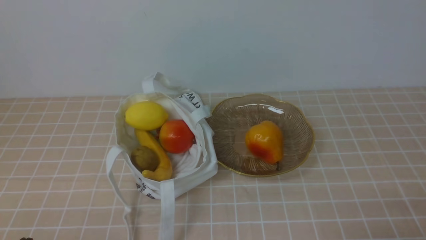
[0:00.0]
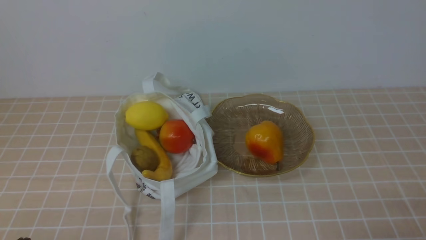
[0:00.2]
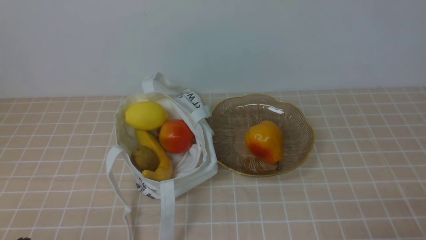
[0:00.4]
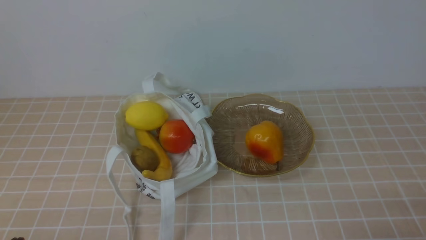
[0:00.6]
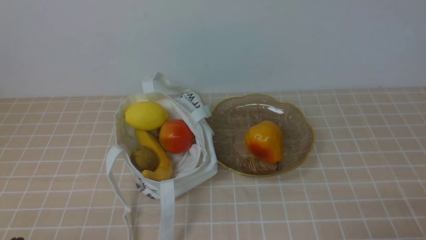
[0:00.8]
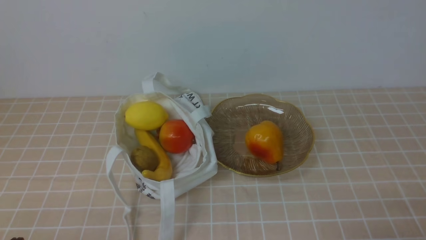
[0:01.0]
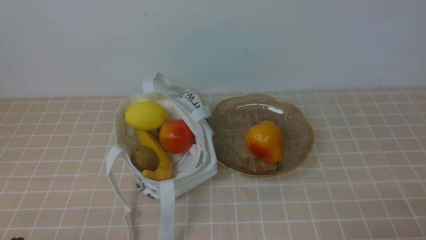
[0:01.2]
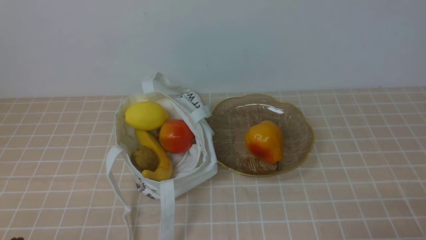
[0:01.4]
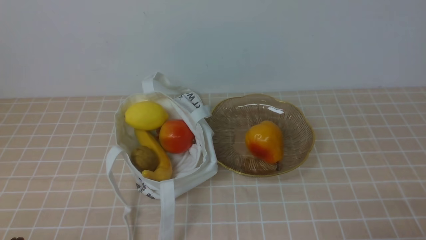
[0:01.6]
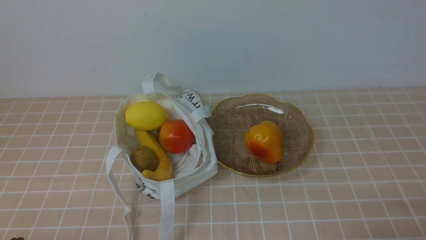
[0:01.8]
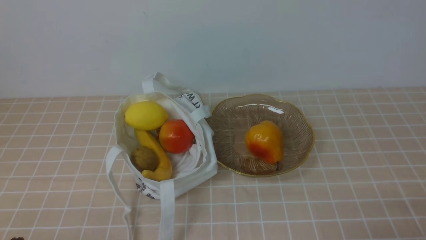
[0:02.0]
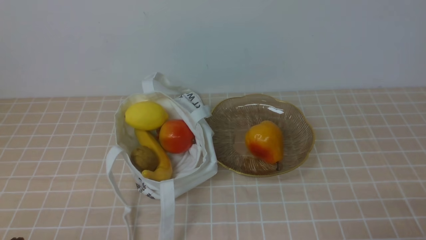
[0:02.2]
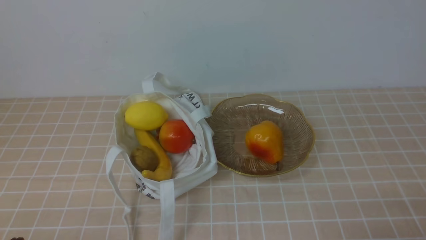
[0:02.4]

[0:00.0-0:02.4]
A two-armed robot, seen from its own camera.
0:00.0 to 0:02.4: Both grippers stay about where they are.

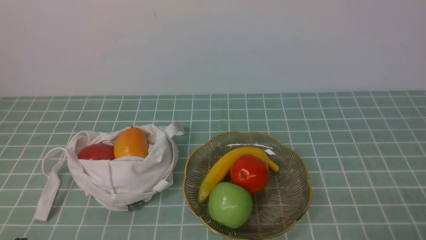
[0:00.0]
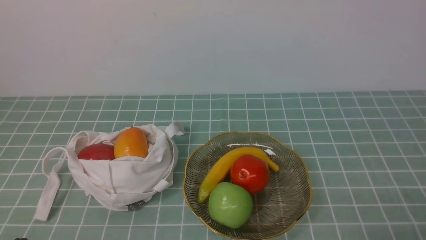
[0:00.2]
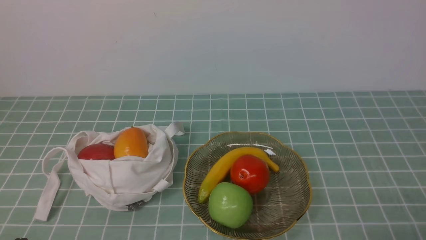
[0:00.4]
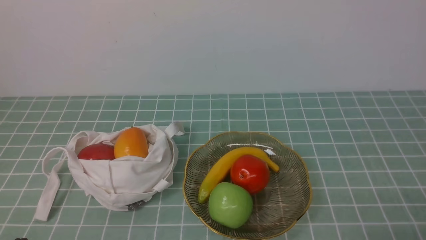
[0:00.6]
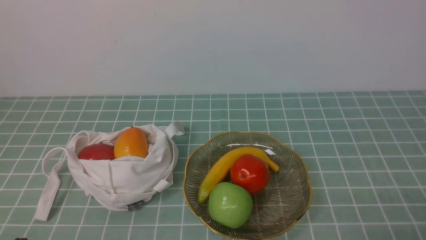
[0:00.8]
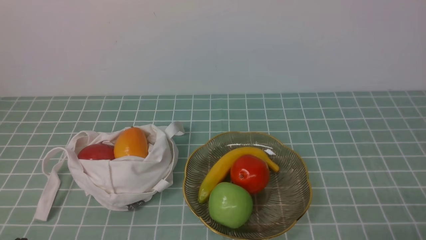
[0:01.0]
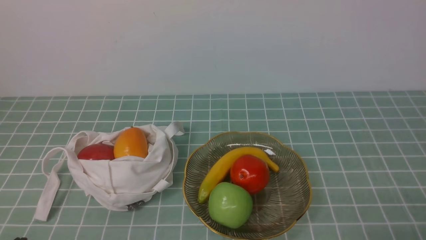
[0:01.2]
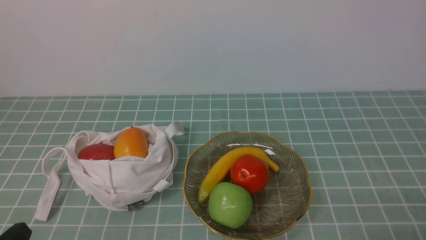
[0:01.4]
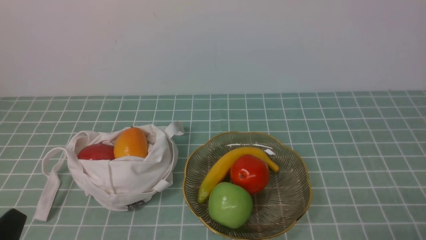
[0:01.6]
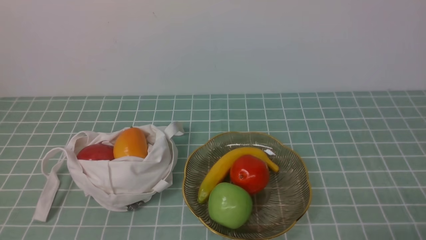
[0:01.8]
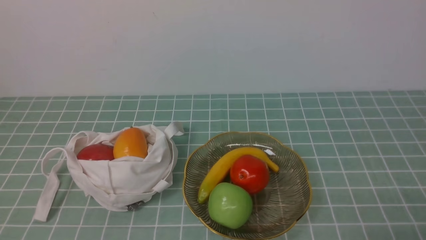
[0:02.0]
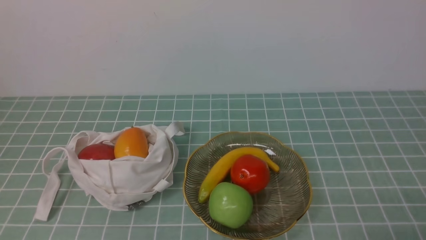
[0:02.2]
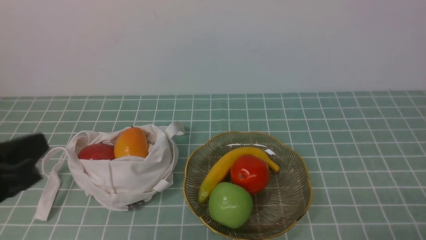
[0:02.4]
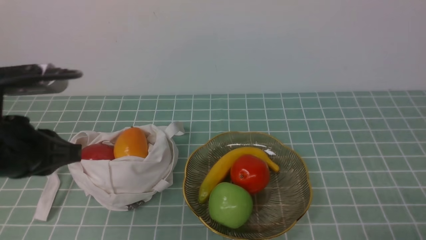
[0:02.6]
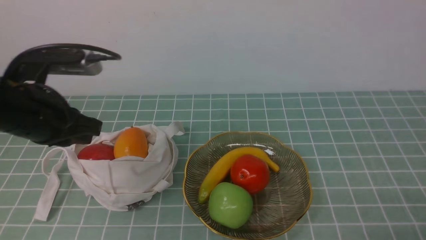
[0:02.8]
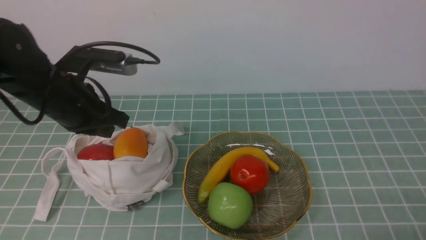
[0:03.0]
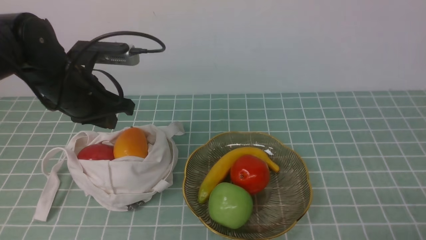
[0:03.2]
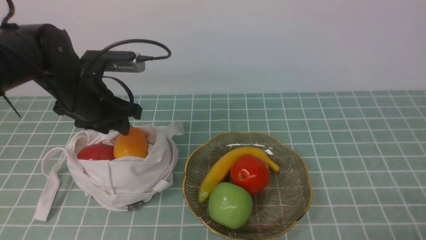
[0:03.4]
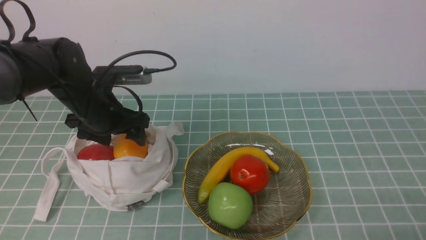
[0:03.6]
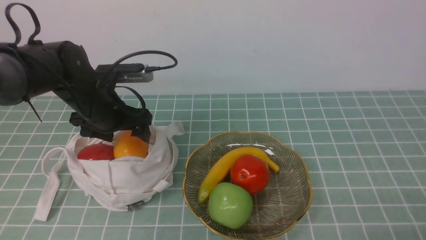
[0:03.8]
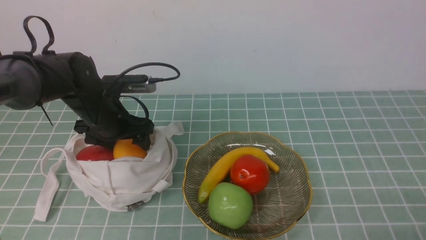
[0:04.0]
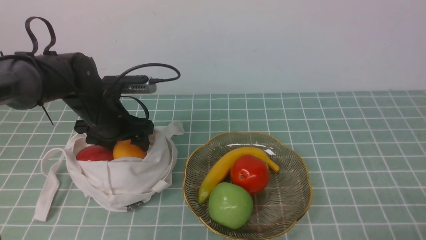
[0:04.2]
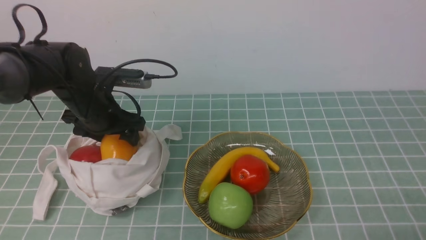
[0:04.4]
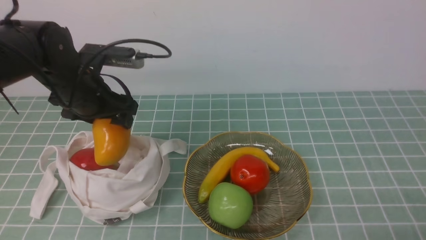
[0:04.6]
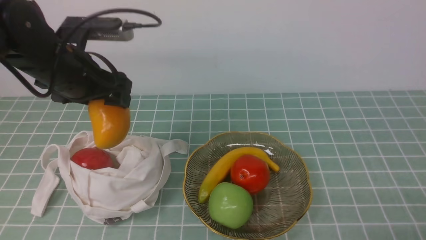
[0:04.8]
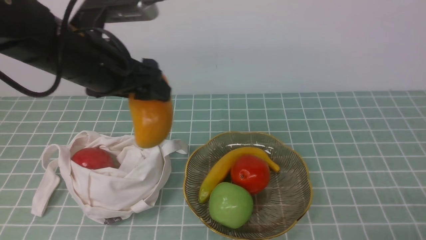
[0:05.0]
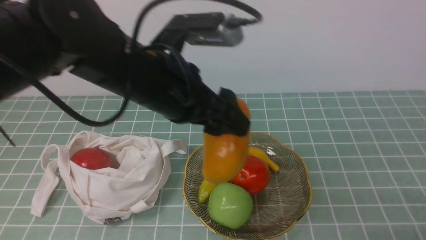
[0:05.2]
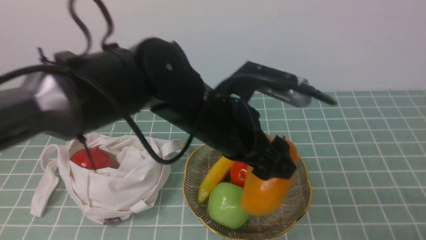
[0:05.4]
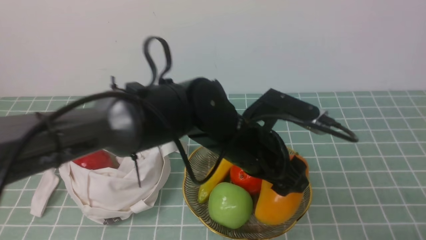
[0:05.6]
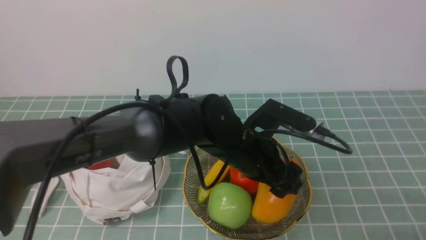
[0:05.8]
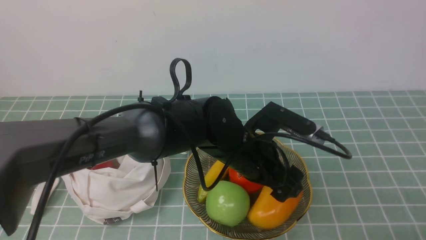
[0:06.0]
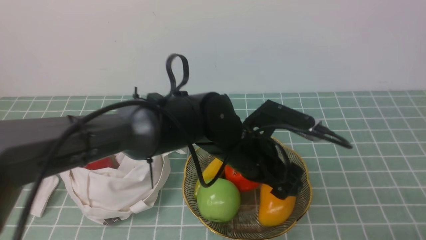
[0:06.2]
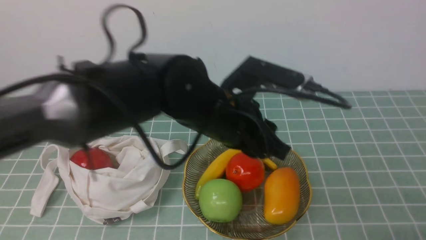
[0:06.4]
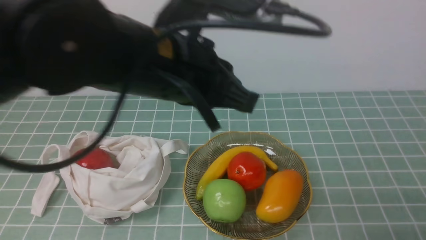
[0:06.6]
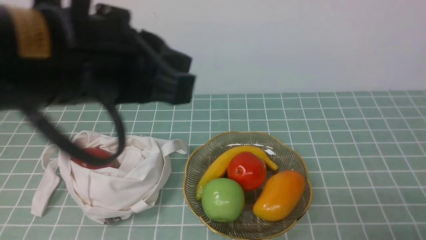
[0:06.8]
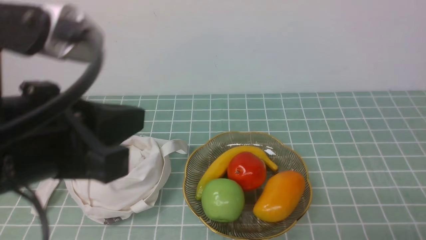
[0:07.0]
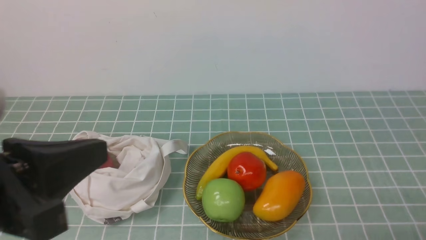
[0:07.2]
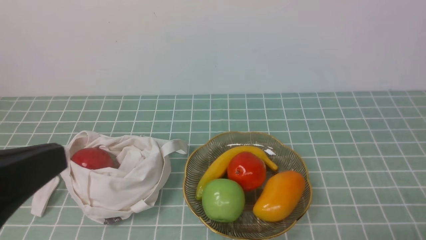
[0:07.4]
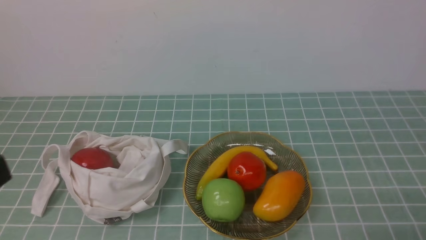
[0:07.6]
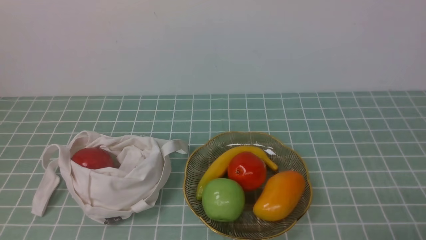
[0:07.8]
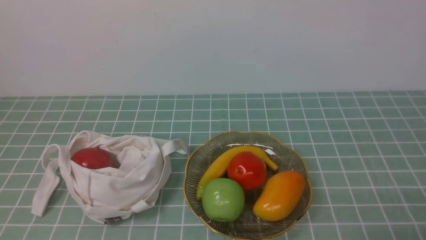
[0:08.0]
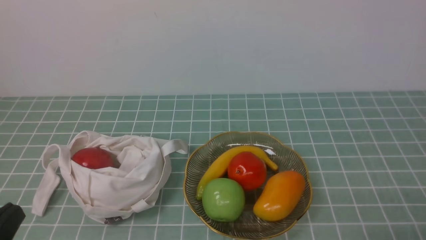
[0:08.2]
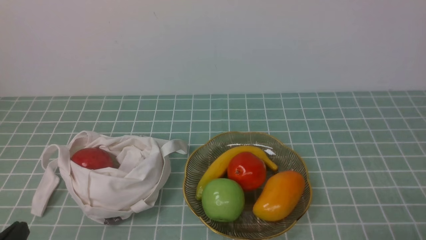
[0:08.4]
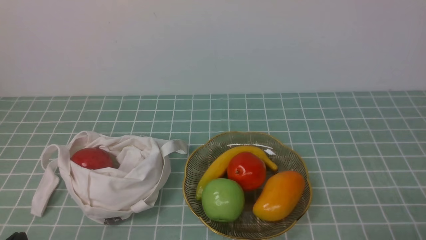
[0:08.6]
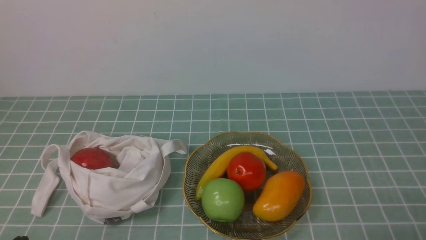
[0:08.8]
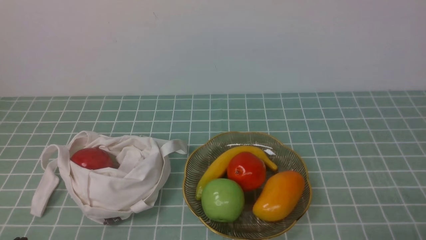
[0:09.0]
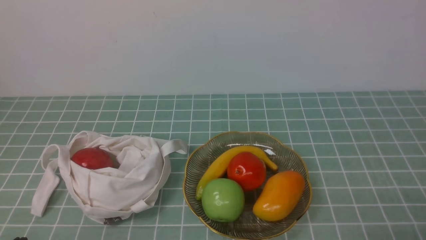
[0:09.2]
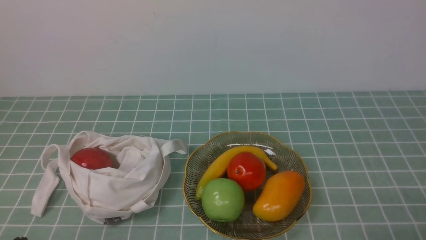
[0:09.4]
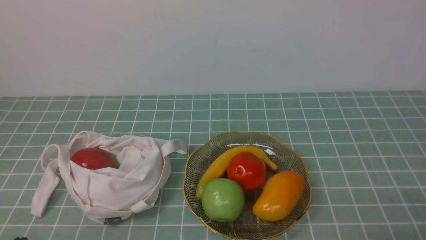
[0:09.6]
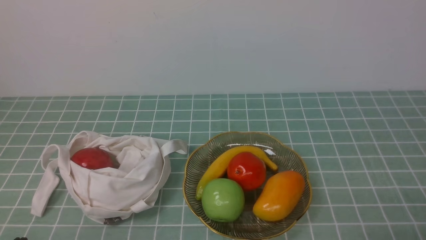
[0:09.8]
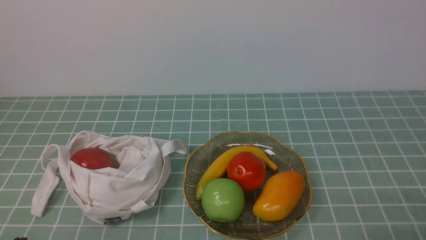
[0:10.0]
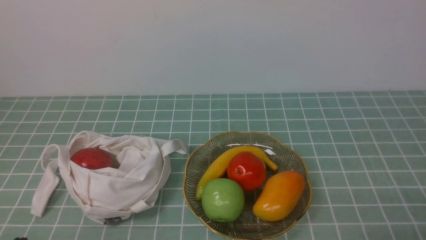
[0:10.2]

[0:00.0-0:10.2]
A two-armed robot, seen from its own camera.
Step, 0:00.0 to 0:04.4: use the left arm to grab a mango from the bag.
Step, 0:04.6 to 0:06.2: use the left arm to put the mango into the empty plate on the right.
0:01.4 to 0:03.0: The left gripper shifts some 25 cm forward.
0:03.0 to 0:04.4: The left gripper goes roughly 10 cm forward and downward, and opens.
0:04.4 to 0:05.8: The left gripper goes about 25 cm to the right.
0:05.8 to 0:07.2: The left gripper moves to the left, backward and upward, approximately 35 cm, and closes up.
0:07.2 to 0:08.8: The left gripper goes approximately 20 cm downward.
0:08.8 to 0:10.2: Both grippers stay about where they are.

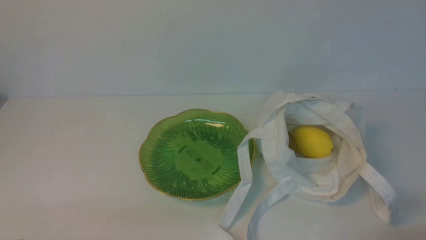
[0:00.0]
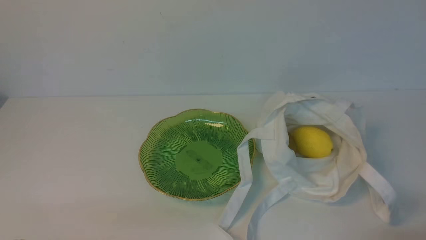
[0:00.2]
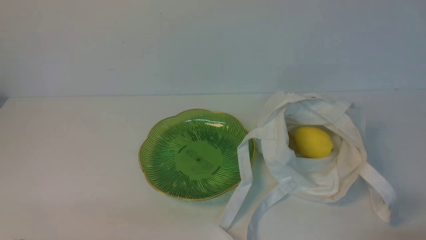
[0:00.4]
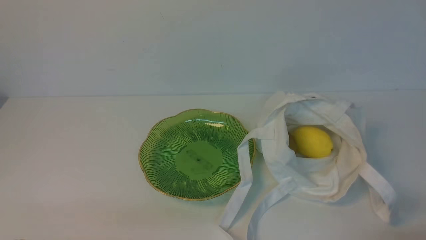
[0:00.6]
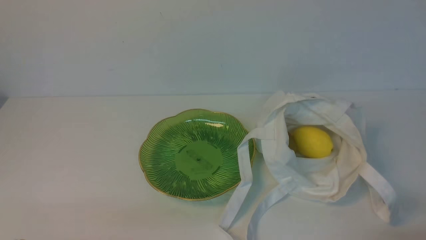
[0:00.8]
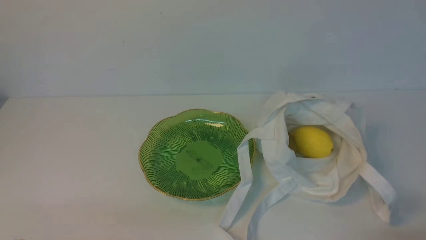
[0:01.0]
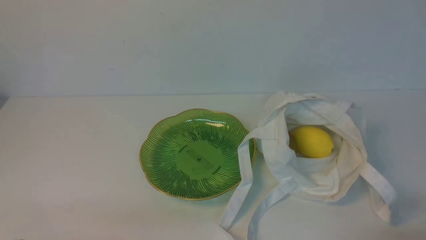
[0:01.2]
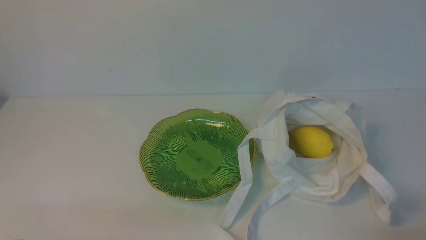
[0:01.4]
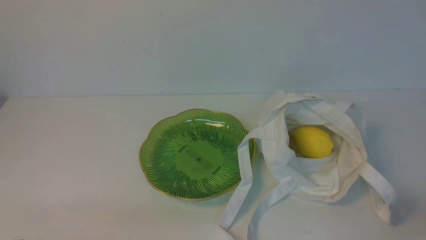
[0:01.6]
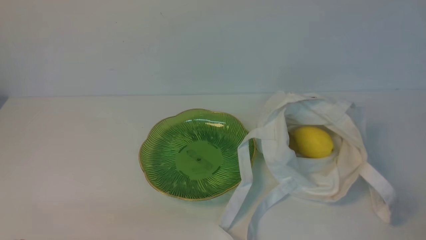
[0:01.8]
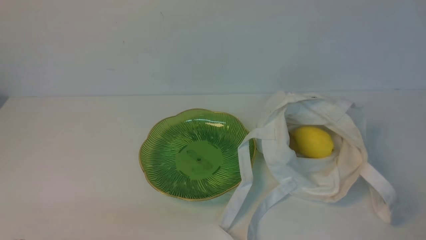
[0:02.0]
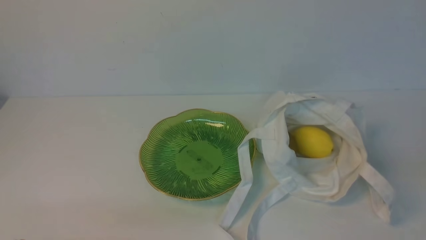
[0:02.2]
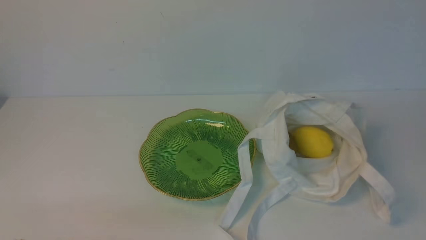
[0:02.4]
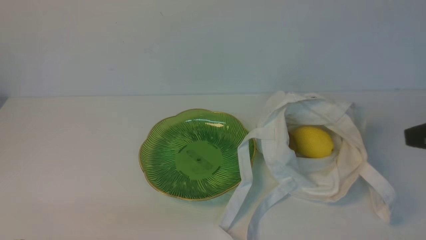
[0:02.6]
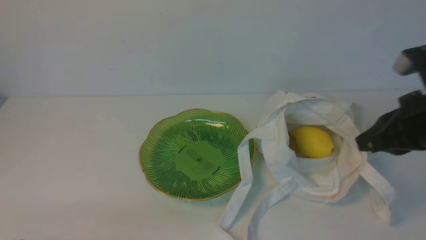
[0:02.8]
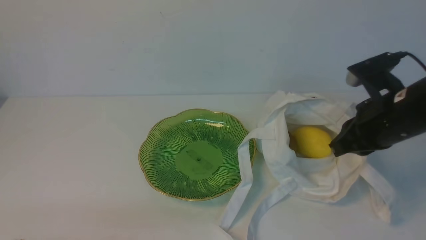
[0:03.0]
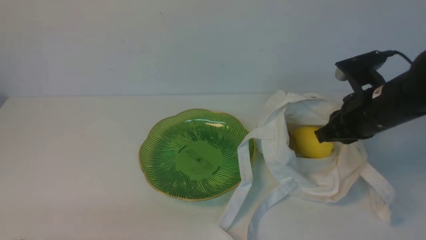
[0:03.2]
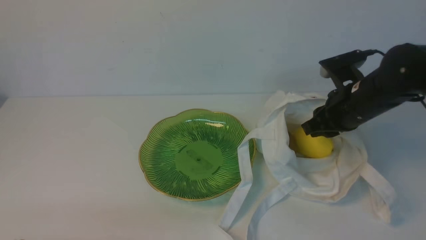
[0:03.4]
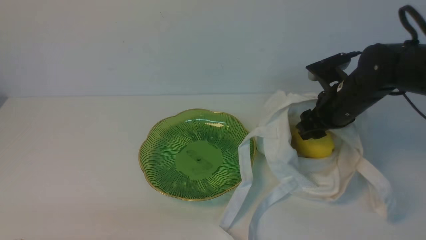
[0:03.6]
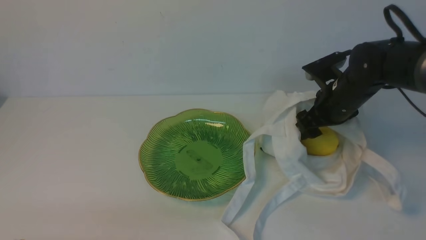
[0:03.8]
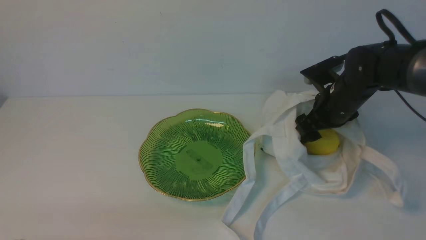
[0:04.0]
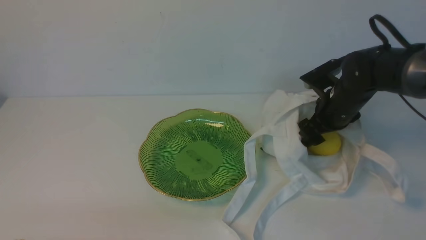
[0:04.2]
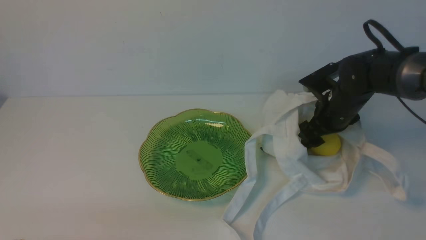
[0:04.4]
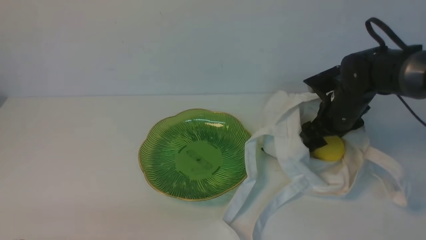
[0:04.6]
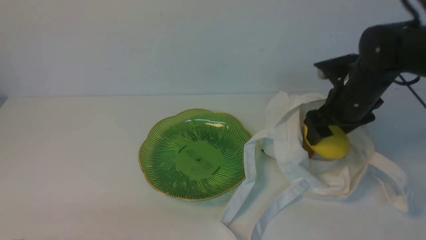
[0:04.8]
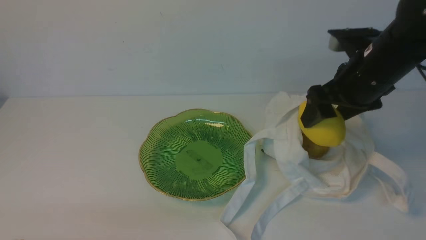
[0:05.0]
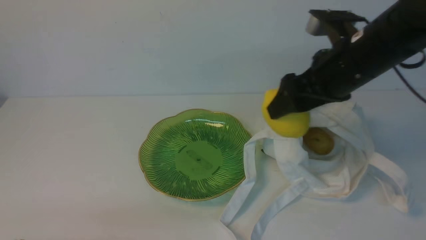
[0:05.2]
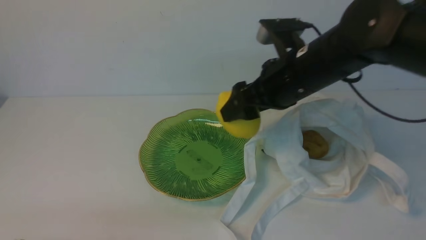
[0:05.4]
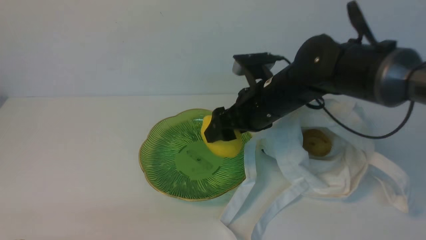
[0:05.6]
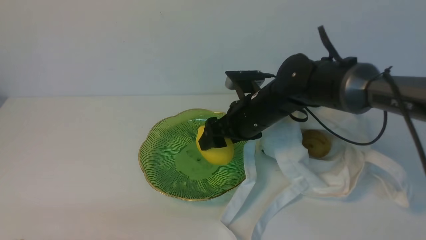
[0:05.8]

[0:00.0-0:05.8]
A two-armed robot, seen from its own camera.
Step, 0:00.0 to 0:04.8: use the right arm to grab a lemon from the bag.
0:01.4 to 0:02.8: The right gripper shifts about 25 cm forward and upward.
0:02.8 to 0:04.4: The right gripper goes roughly 20 cm forward and downward, and opens up.
0:04.4 to 0:05.8: The right gripper goes about 15 cm to the left.
